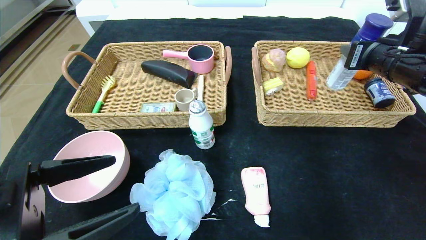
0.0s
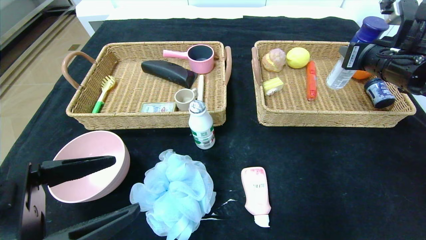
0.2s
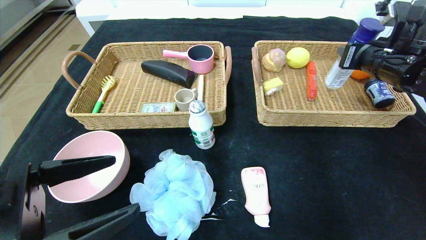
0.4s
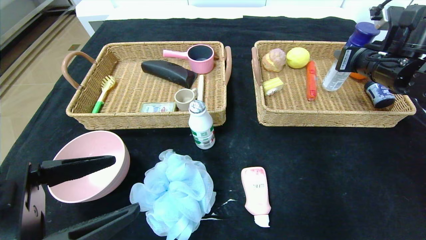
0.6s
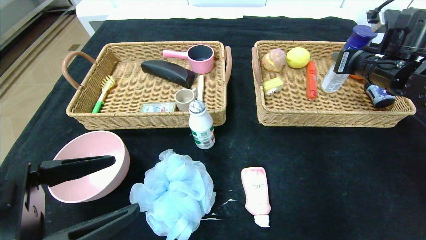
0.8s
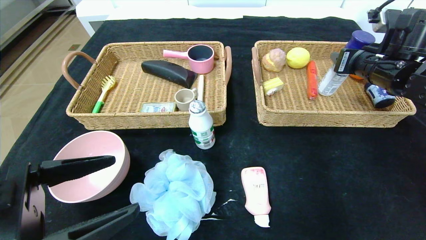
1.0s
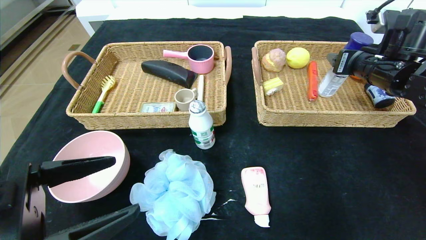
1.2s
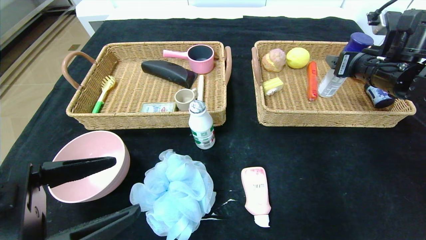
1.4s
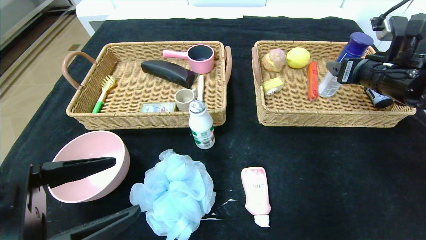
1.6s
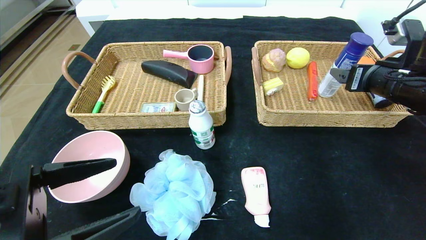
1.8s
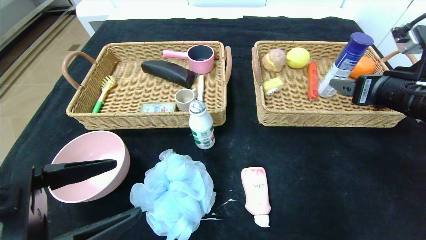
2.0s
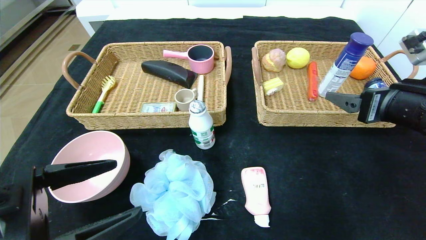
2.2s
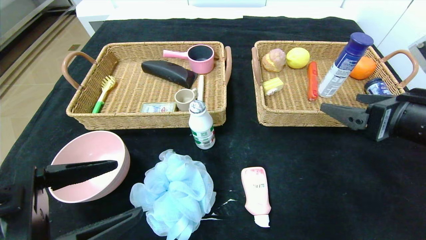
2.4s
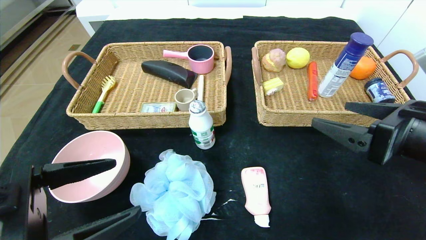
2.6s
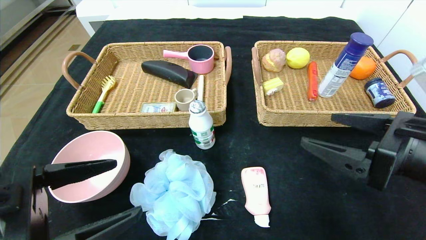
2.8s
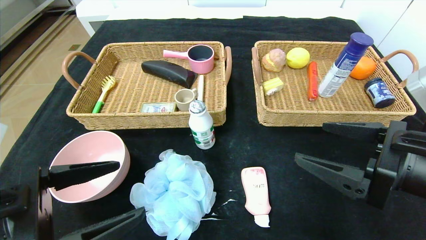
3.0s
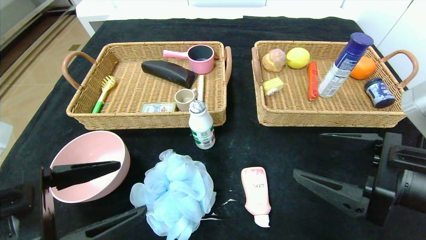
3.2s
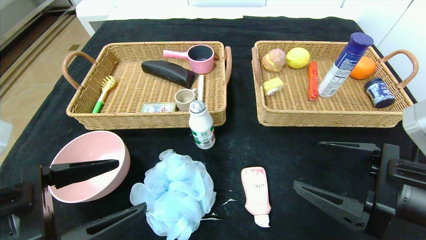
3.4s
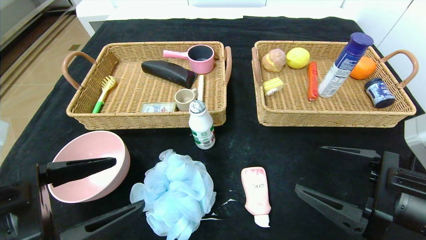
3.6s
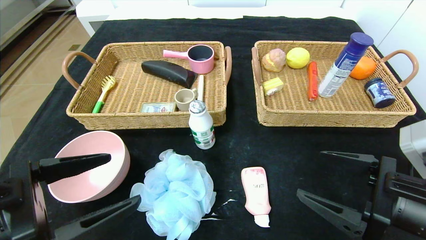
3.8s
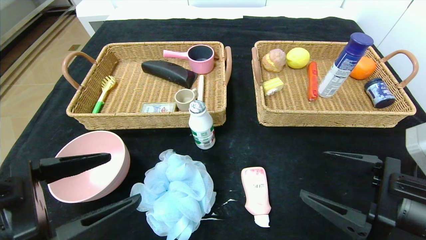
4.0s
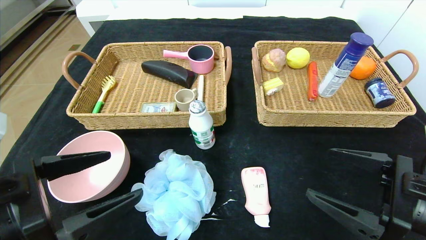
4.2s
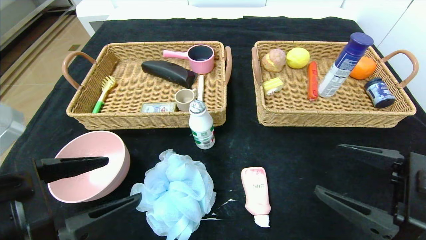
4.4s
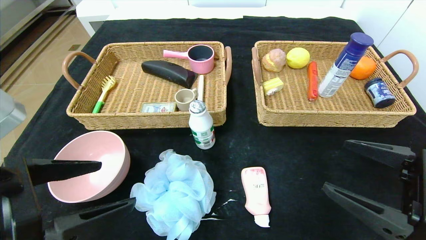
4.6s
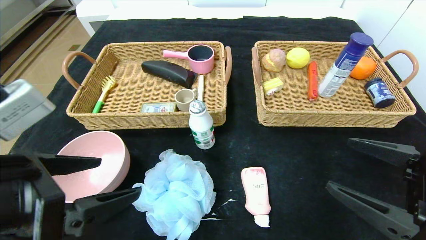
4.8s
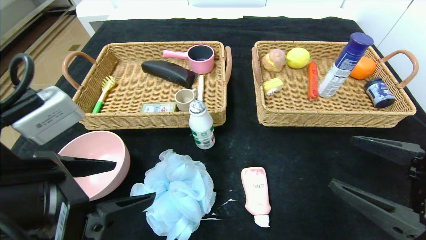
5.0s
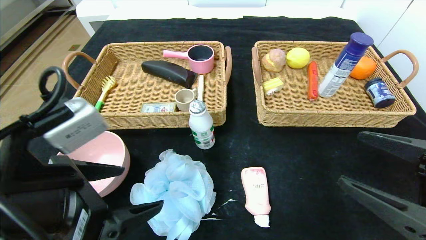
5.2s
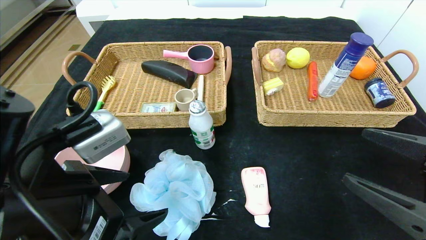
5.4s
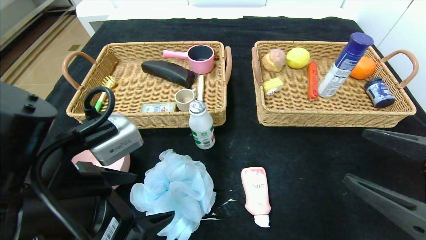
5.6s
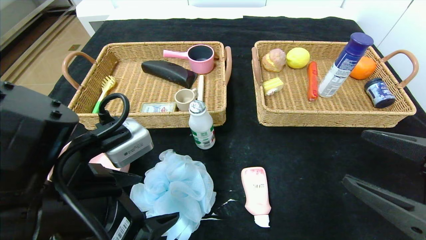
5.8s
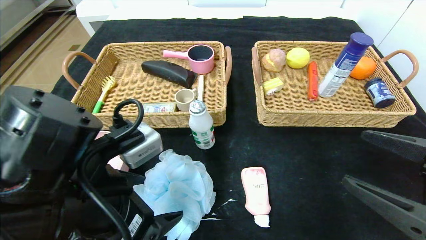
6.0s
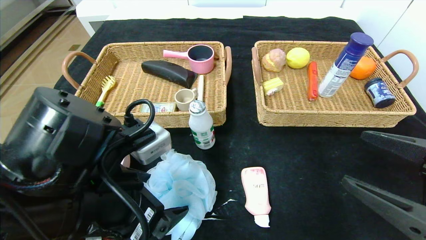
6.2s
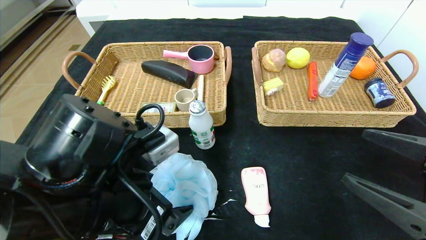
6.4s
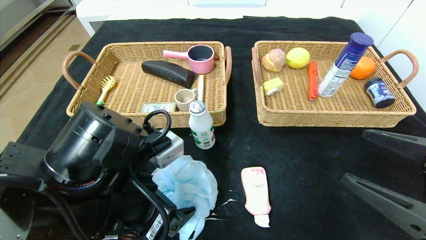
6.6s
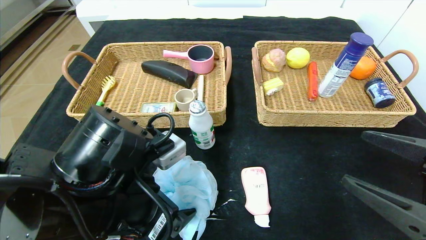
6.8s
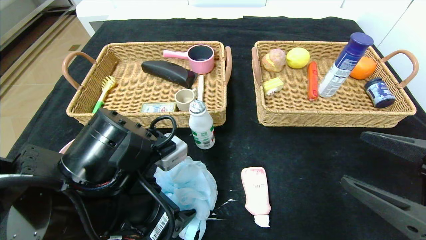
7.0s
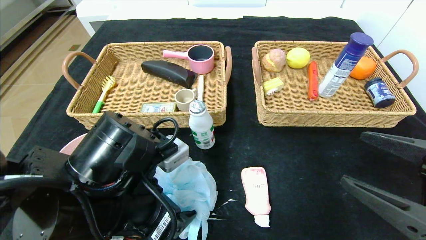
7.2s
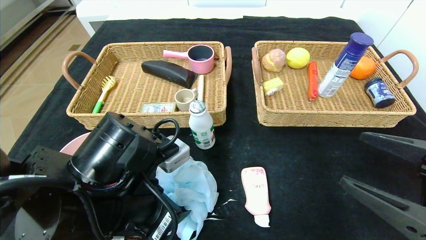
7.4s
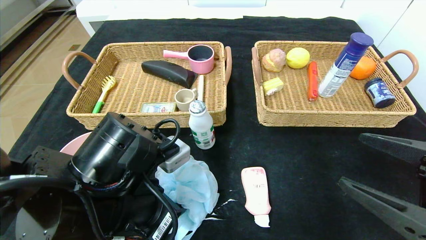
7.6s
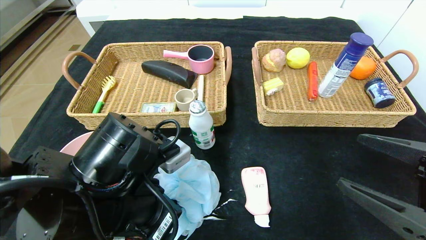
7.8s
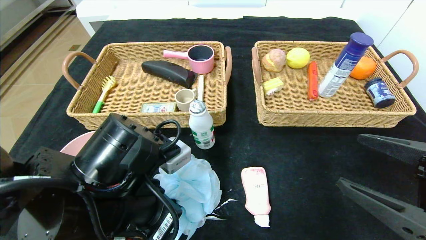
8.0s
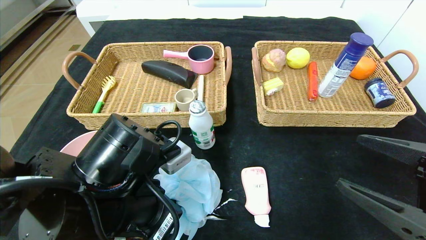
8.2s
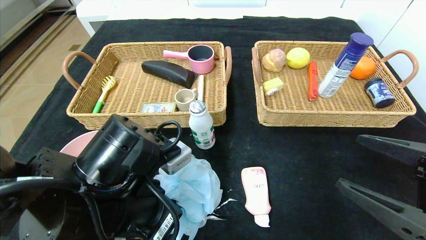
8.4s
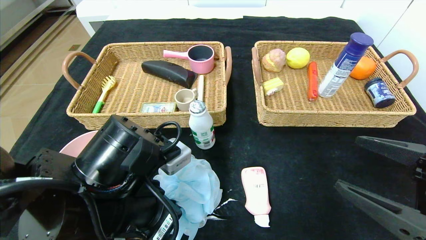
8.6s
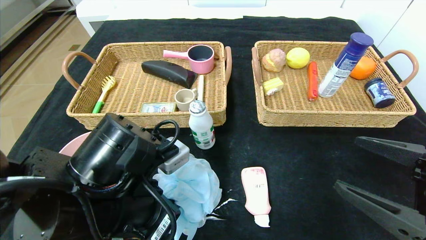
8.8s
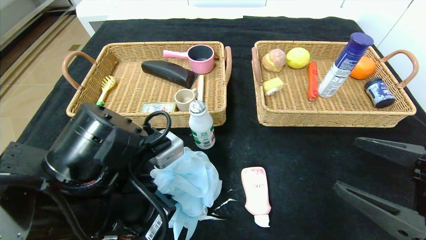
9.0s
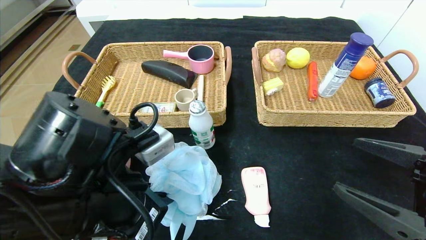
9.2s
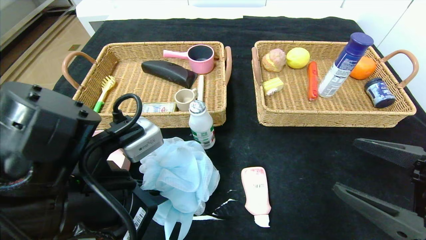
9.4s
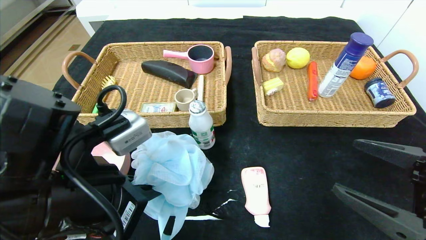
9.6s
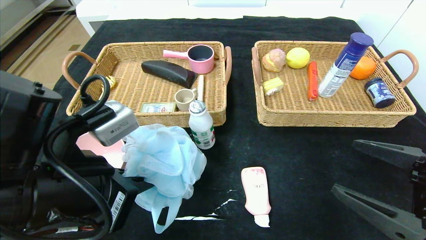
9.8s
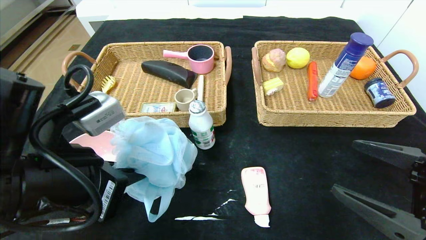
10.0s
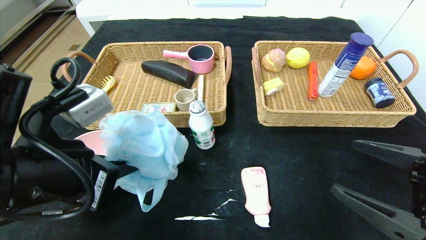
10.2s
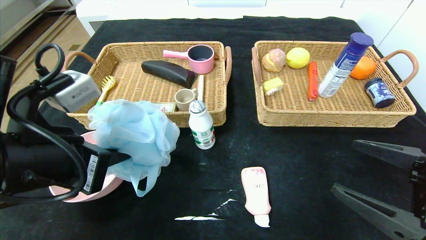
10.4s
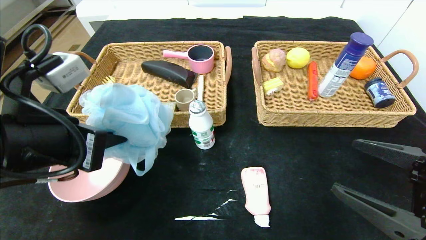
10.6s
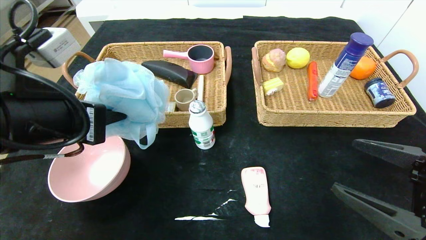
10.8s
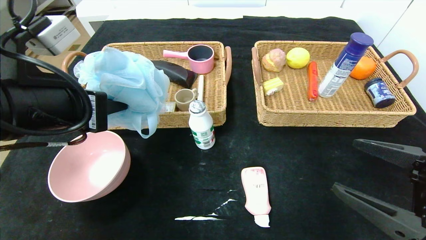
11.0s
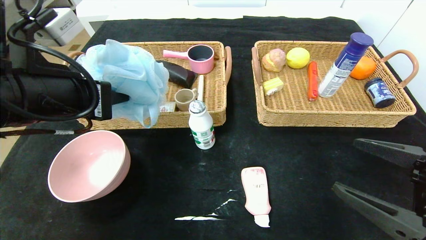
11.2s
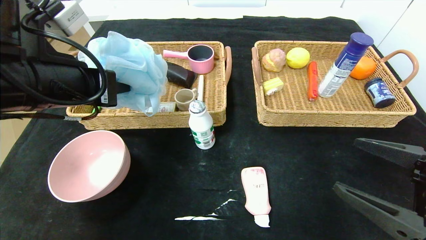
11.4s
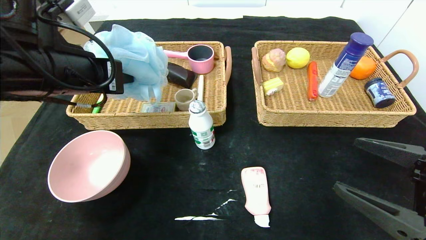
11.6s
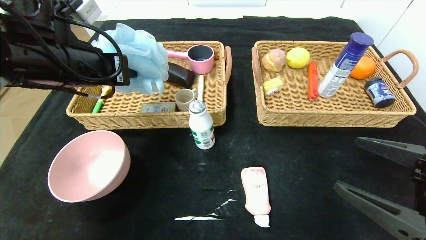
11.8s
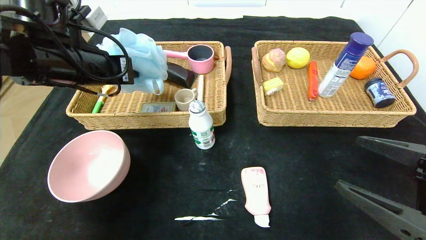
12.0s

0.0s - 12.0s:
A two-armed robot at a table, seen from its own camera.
0.0s - 1.6s: The right gripper opens.
1.6s - 3.0s: The right gripper moves backward, roughly 20 cm.
3.0s - 4.4s: The right gripper moves approximately 5 cm.
4.4s - 6.0s: The left gripper travels to the right by some 5 cm.
6.0s - 7.6s: The left gripper closes.
7.6s - 9.0s: The grippers make only small movements.
9.0s - 10.4s: The left gripper goes approximately 10 cm to the left and upward.
10.4s - 12.0s: The left gripper moves forward, about 15 cm.

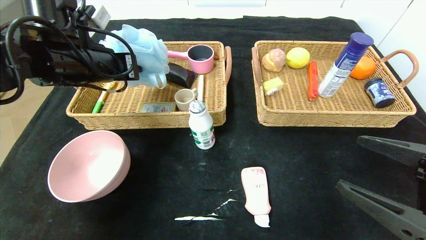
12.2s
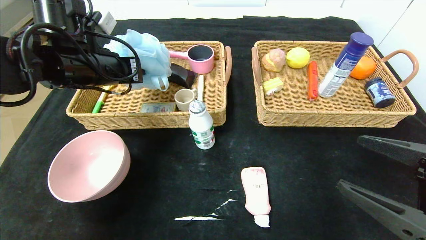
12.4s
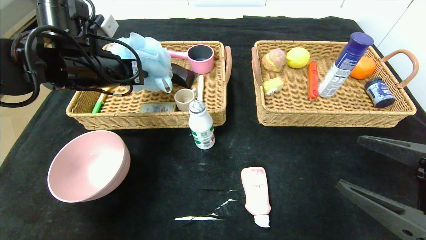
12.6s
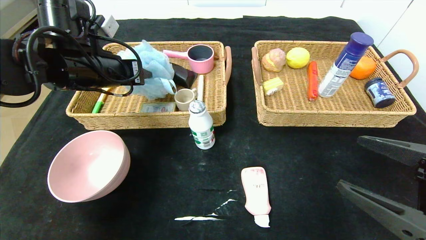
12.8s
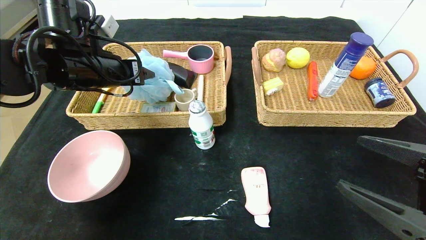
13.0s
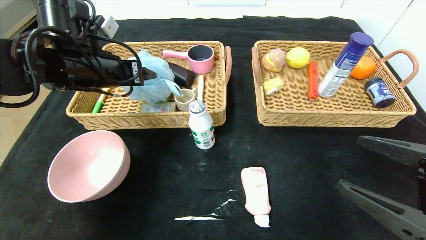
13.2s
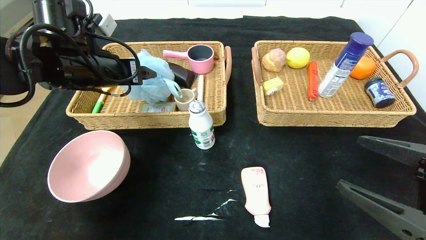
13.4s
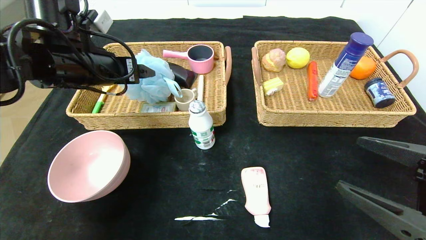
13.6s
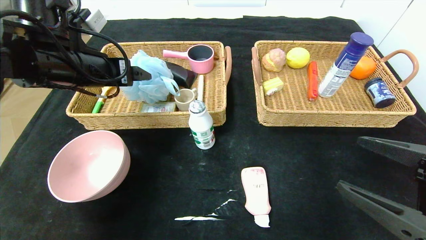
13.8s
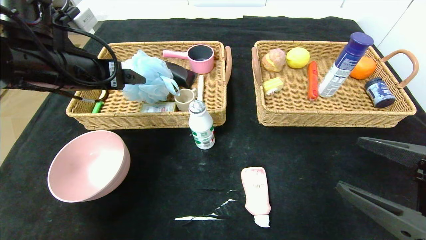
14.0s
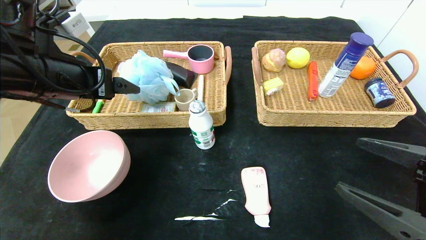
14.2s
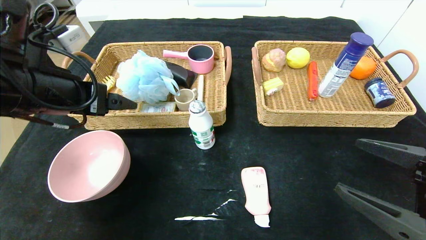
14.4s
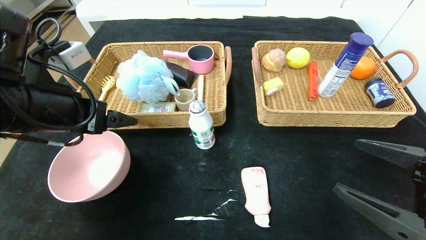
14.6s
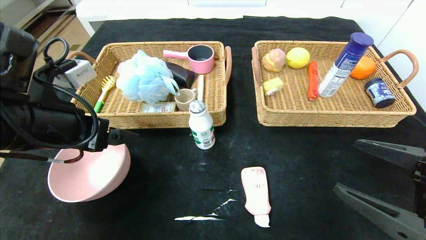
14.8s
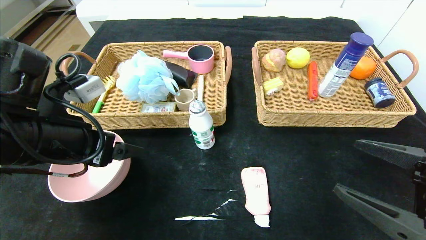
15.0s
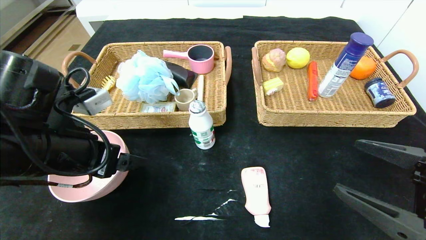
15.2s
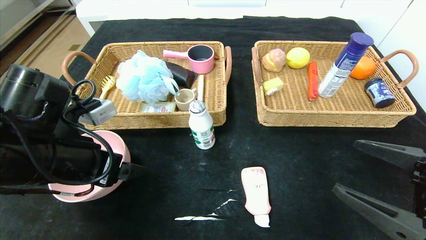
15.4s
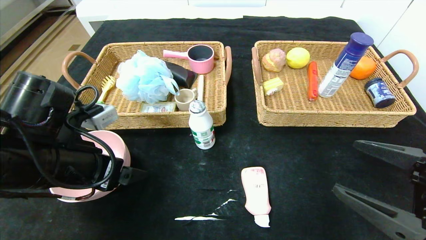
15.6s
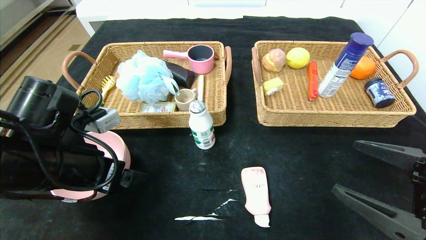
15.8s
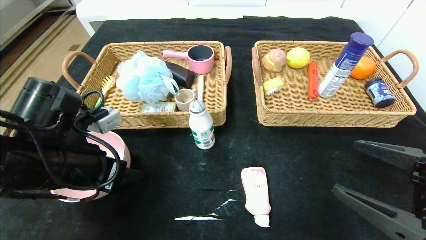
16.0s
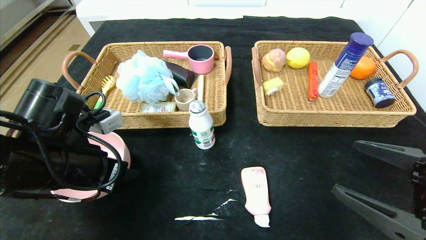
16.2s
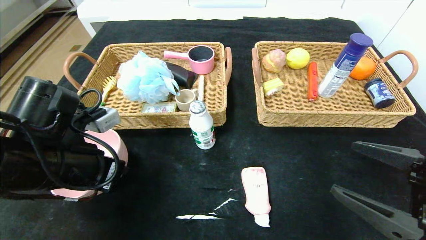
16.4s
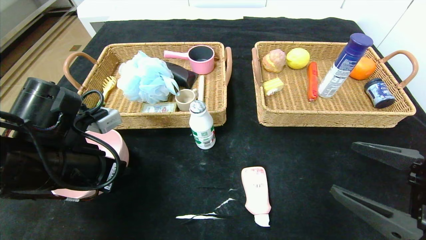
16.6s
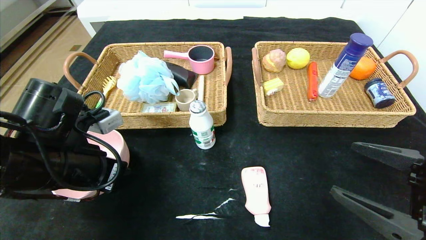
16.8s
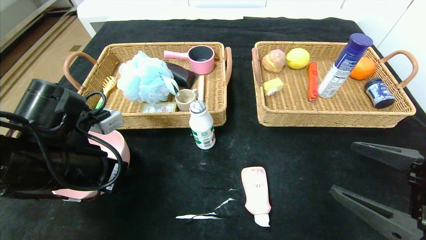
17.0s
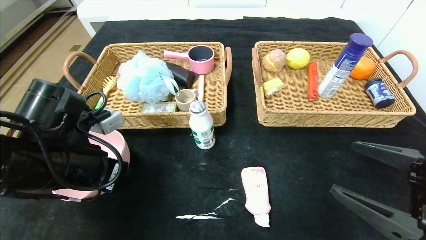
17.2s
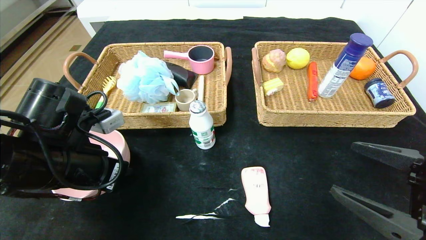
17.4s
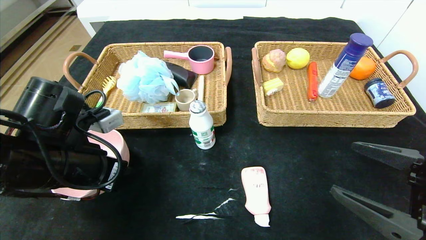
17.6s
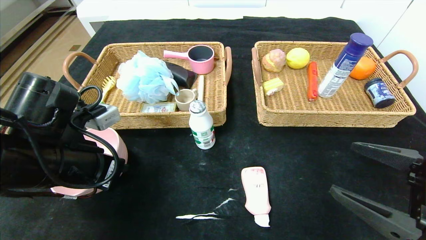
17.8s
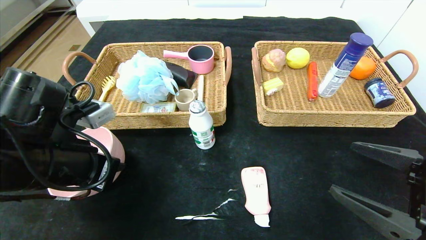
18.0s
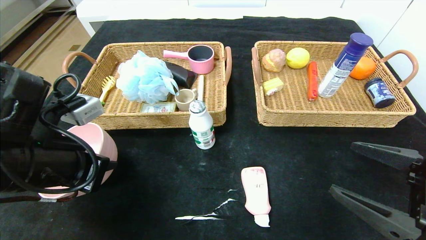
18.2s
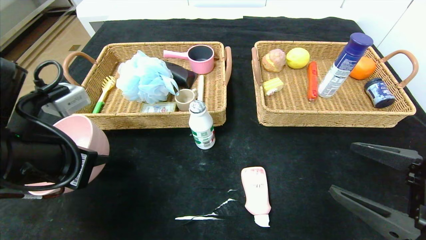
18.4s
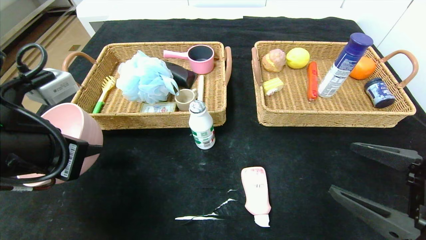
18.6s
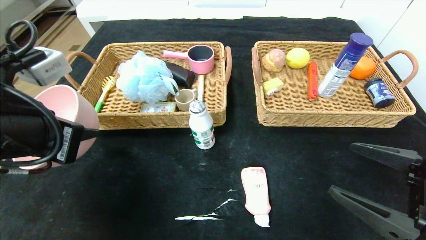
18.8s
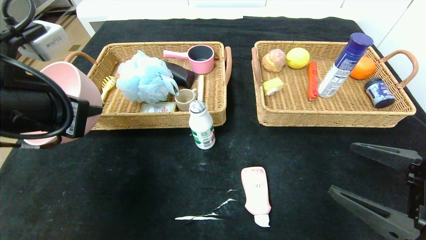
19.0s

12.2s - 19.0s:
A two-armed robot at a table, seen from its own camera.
12.2s - 13.6s: The left gripper opens.
13.6s - 15.0s: The left gripper heads backward and downward, covering some 15 cm.
15.0s - 16.2s: The left gripper closes.
16.2s - 17.6s: The left gripper closes.
17.6s - 19.0s: The left gripper goes approximately 10 cm upward.
